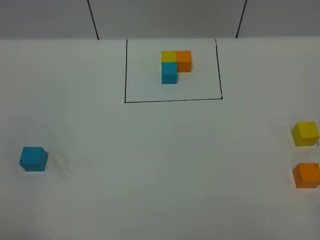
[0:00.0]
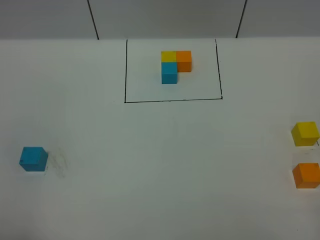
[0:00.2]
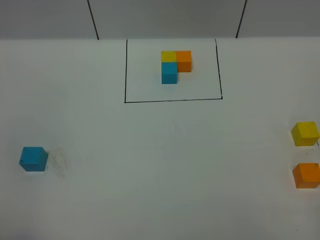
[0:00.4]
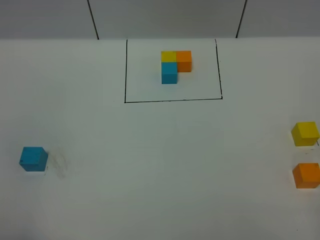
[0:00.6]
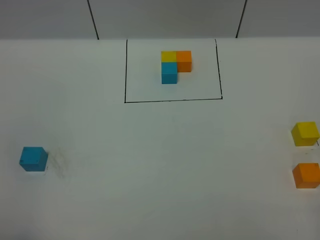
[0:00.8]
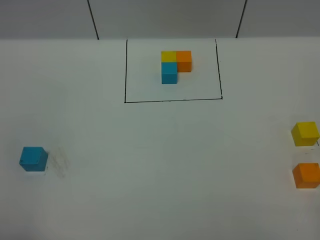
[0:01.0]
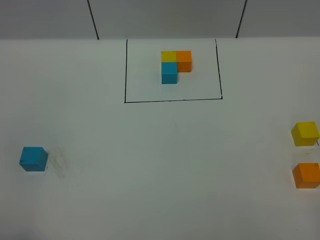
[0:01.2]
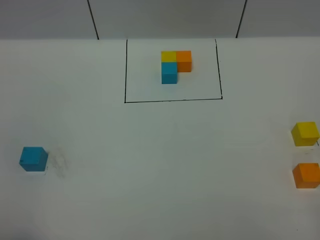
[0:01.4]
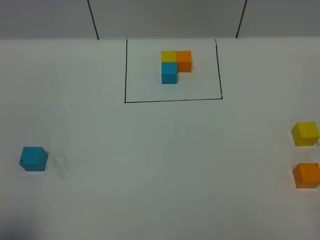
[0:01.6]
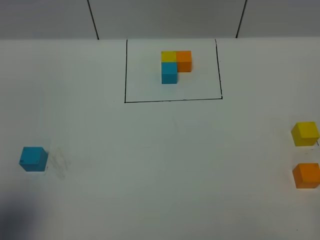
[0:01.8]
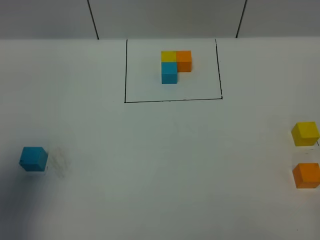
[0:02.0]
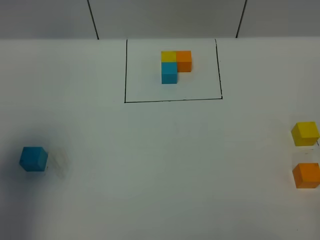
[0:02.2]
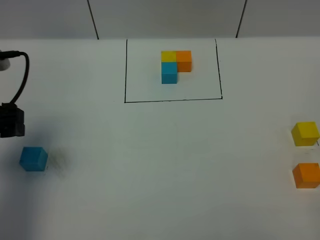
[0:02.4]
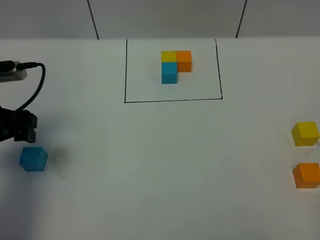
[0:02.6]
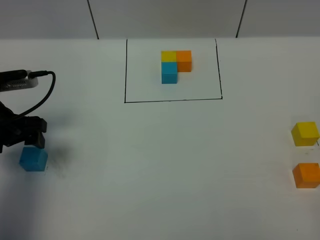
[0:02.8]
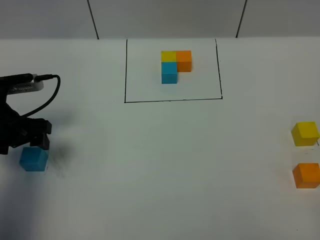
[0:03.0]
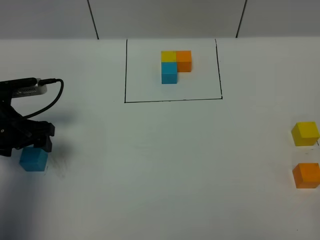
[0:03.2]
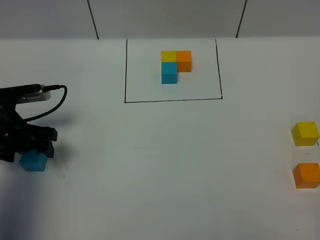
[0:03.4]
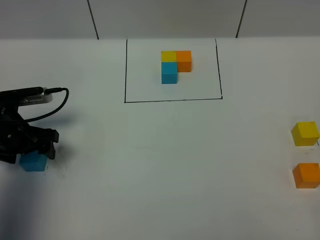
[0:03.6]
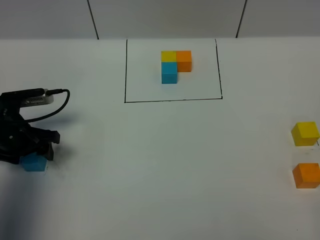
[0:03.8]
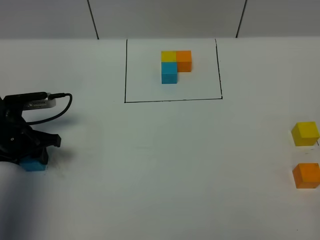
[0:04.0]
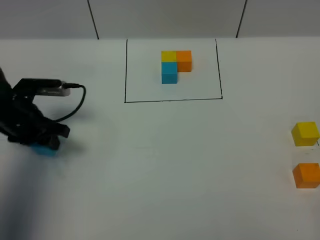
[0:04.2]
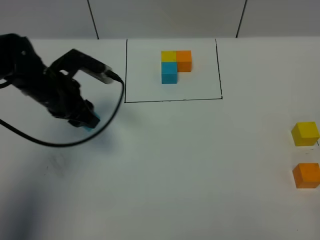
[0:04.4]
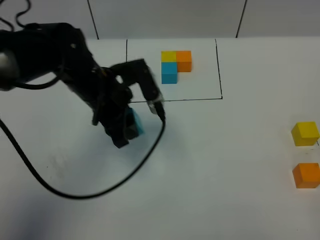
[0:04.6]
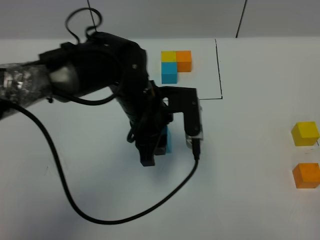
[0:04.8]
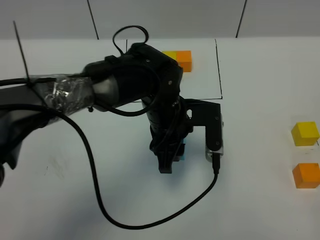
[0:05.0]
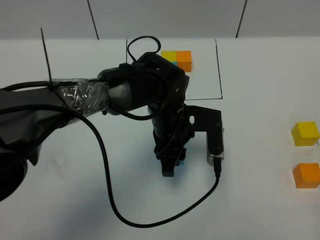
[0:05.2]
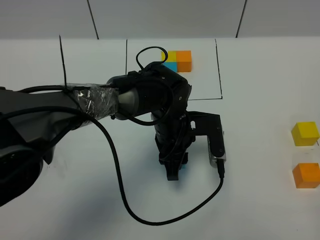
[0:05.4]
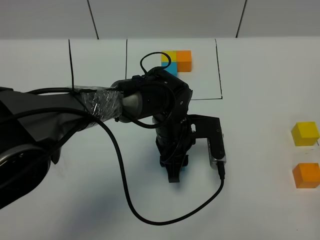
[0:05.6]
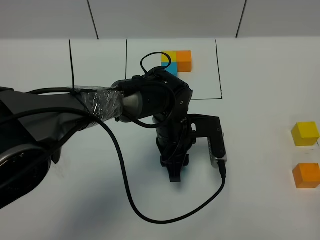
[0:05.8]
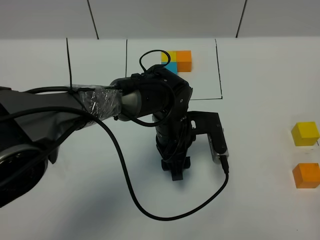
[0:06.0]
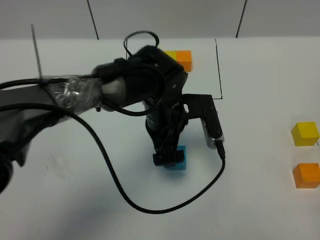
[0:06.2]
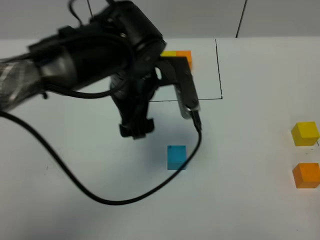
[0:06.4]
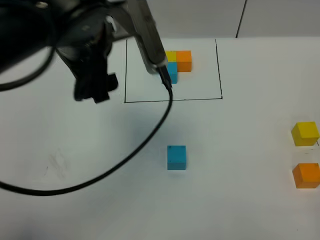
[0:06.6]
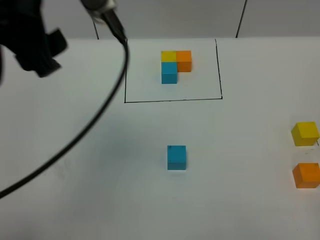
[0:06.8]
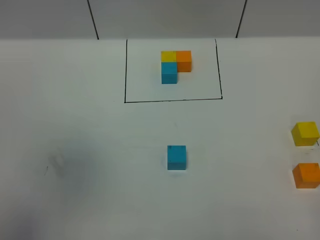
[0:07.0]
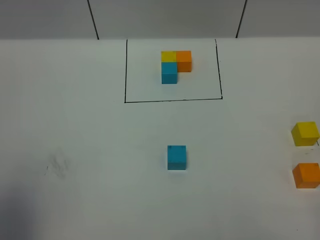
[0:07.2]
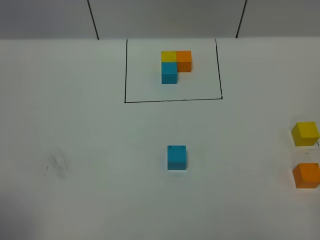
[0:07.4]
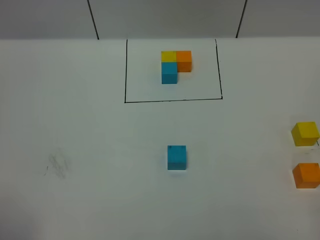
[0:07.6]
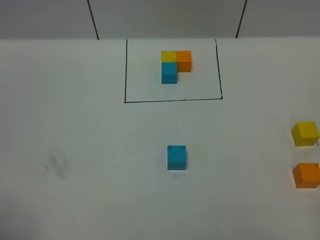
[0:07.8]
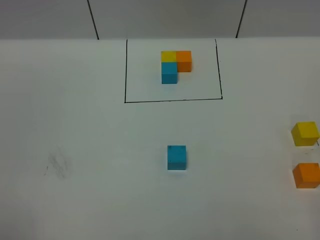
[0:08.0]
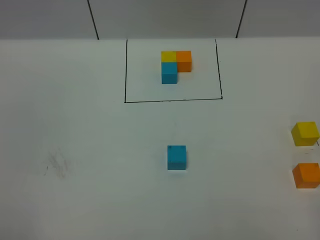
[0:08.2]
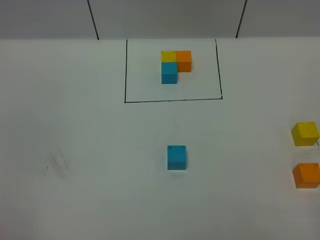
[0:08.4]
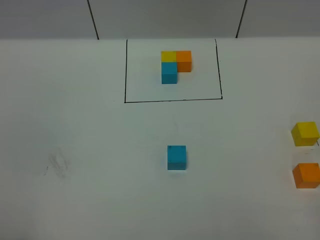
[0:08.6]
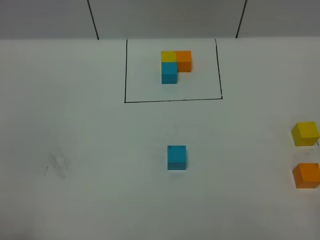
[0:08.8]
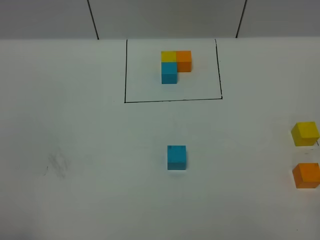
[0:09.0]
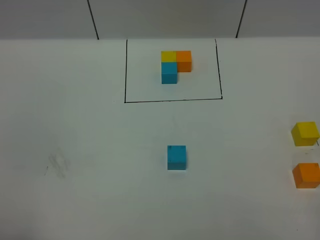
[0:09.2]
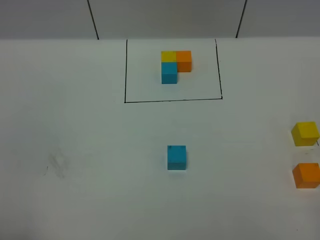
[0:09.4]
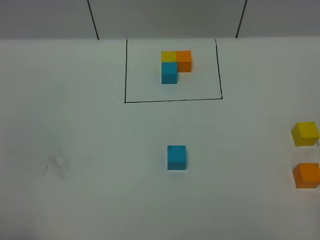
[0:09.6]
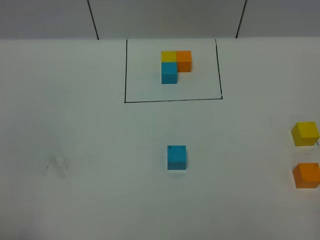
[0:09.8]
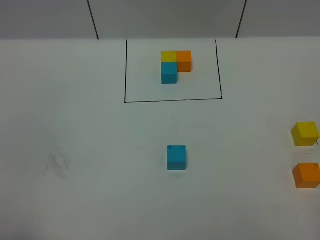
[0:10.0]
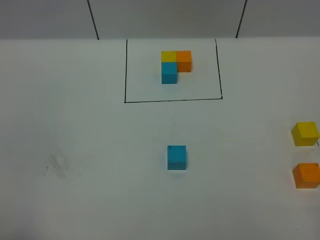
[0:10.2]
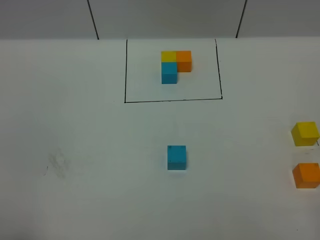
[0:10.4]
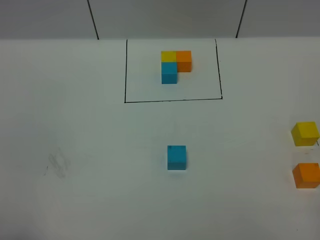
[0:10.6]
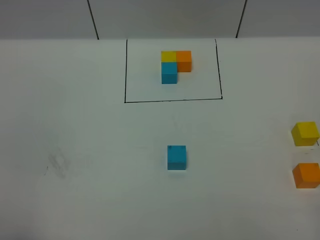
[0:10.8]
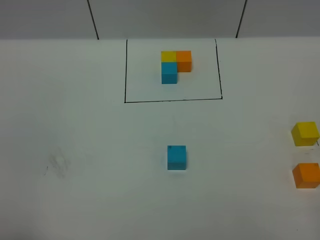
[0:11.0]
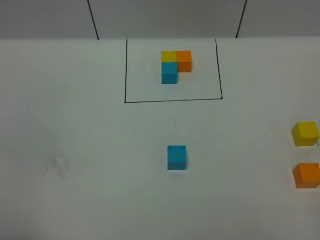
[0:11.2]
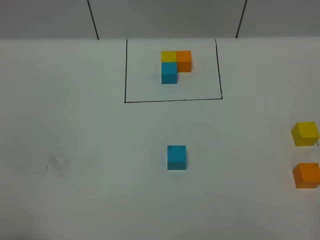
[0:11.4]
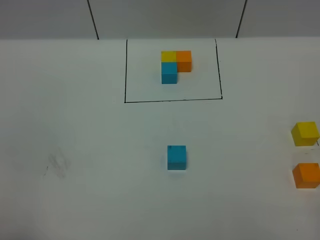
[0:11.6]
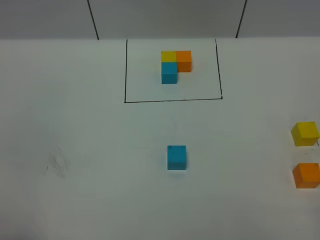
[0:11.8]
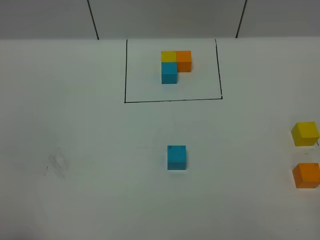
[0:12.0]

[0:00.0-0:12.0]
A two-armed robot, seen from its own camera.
Task of the whole recording: According to the building block template in front, assemble the scattered blocks together.
Step, 0:02.2 to 0:06.0: Put the blue cube in the center of the table.
0:01.6 to 0:03.0: The left gripper shifts approximately 30 cm forward and downward.
0:03.0 to 0:04.4: The left gripper travels to the right and forward by approximately 10 cm, and closes.
0:04.4 to 0:06.0: The left gripper moves to the right, about 20 cm, and opens up.
0:06.0 to 0:07.6: The left gripper shifts roughly 60 cm to the left, upward and backward.
0:09.0 to 0:12.0: Both grippers stay about where they are.

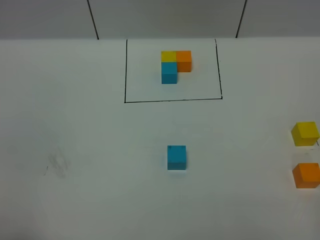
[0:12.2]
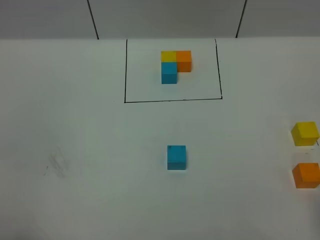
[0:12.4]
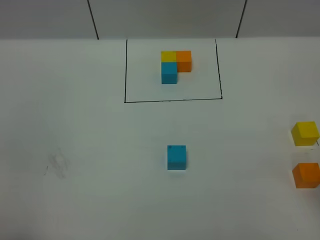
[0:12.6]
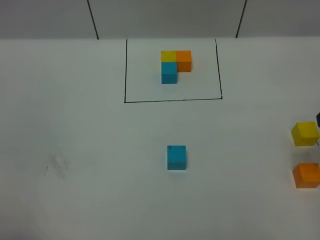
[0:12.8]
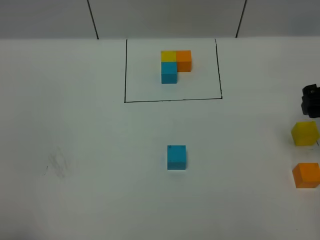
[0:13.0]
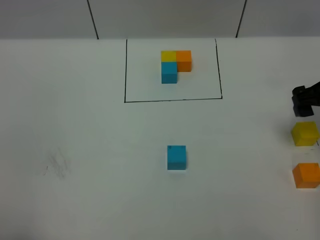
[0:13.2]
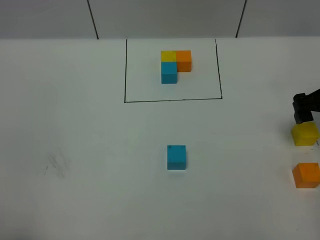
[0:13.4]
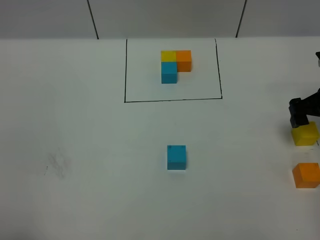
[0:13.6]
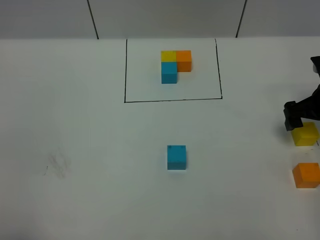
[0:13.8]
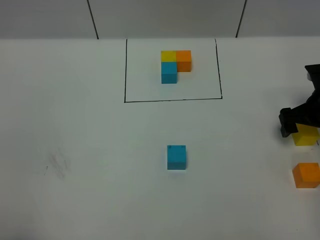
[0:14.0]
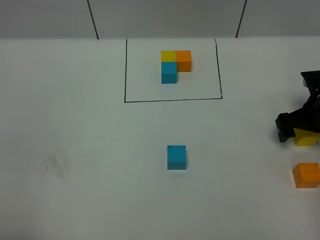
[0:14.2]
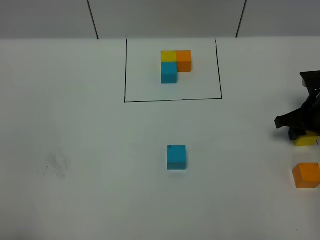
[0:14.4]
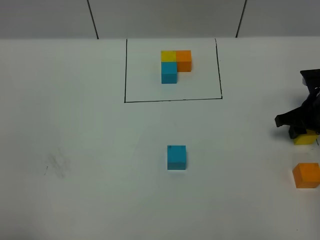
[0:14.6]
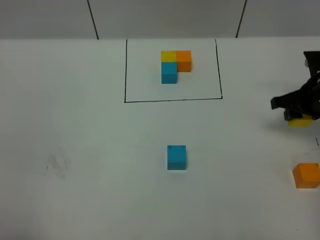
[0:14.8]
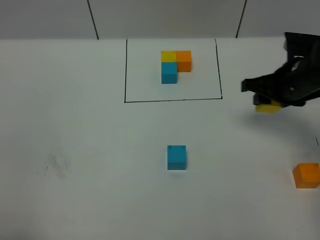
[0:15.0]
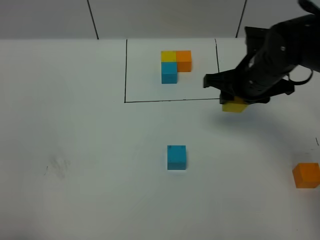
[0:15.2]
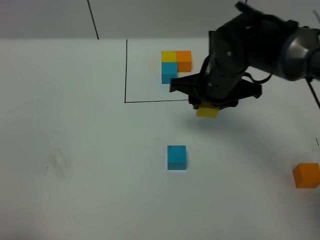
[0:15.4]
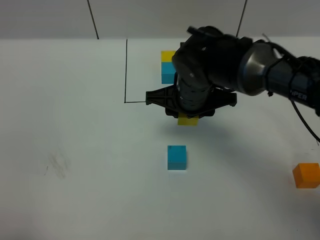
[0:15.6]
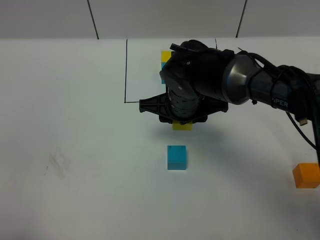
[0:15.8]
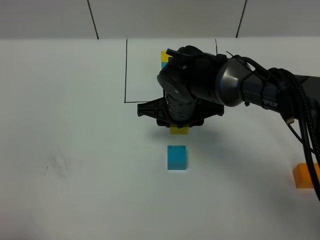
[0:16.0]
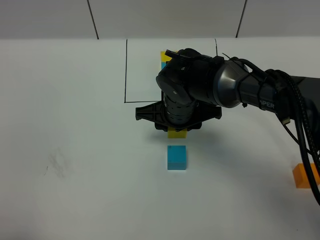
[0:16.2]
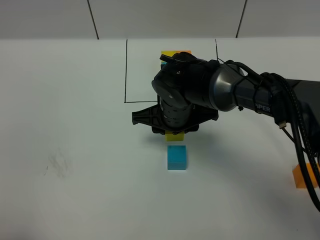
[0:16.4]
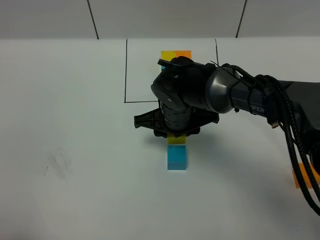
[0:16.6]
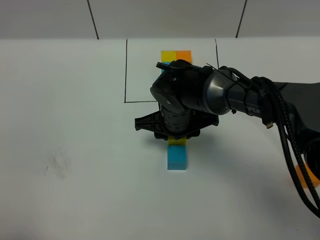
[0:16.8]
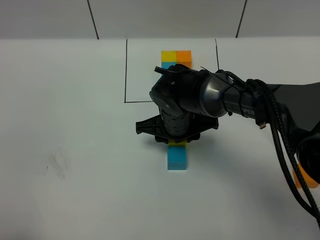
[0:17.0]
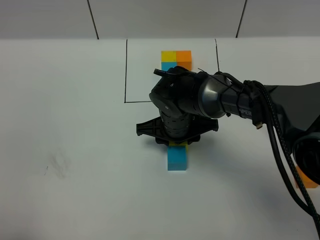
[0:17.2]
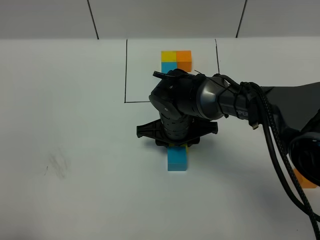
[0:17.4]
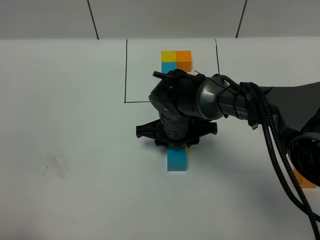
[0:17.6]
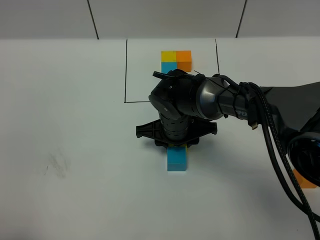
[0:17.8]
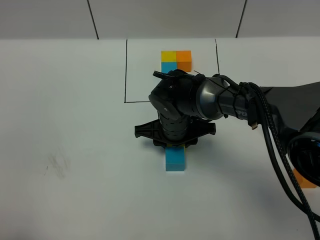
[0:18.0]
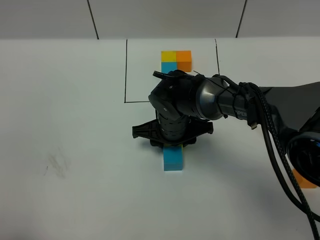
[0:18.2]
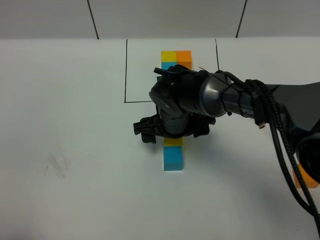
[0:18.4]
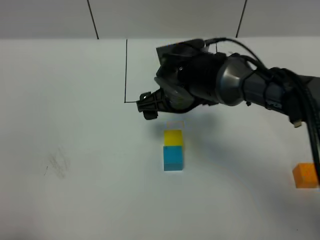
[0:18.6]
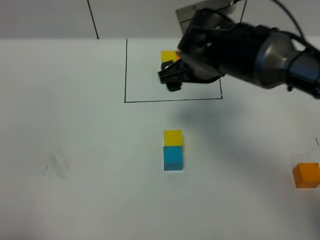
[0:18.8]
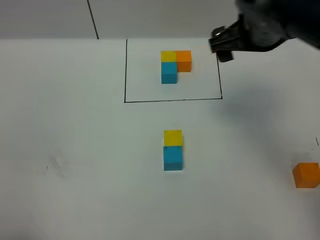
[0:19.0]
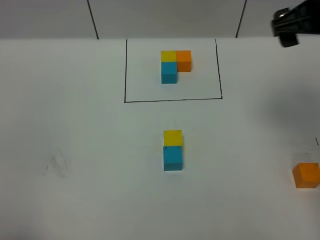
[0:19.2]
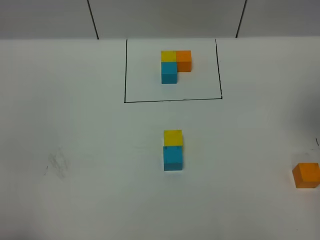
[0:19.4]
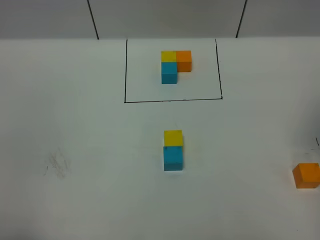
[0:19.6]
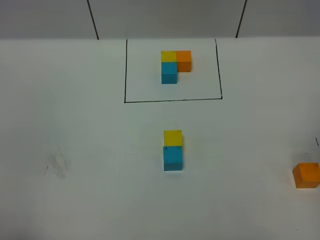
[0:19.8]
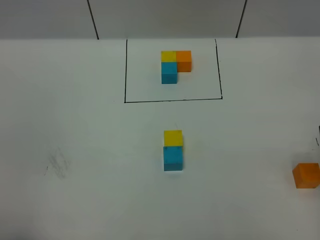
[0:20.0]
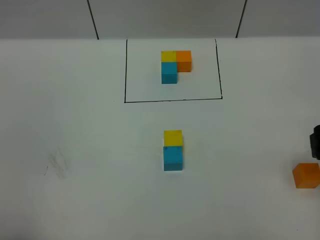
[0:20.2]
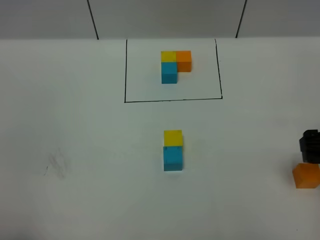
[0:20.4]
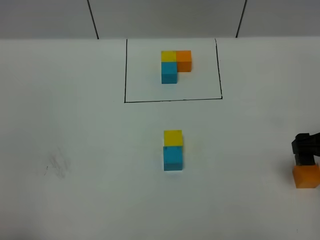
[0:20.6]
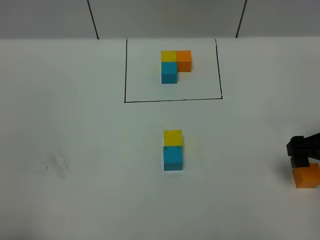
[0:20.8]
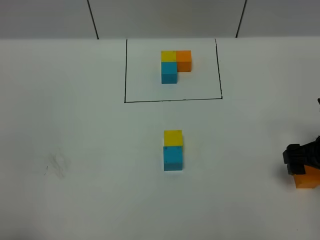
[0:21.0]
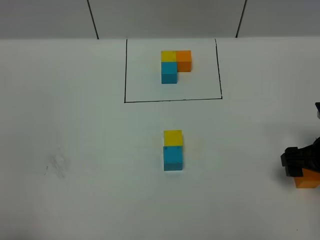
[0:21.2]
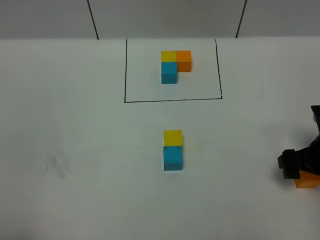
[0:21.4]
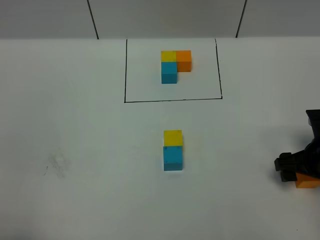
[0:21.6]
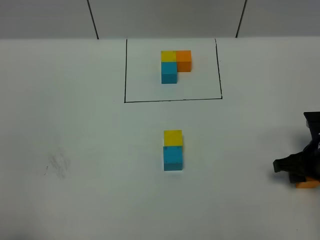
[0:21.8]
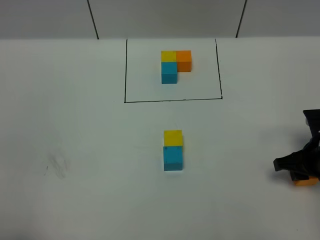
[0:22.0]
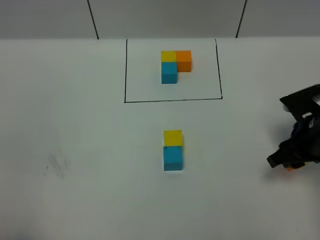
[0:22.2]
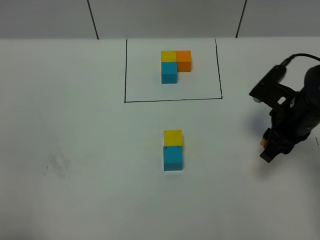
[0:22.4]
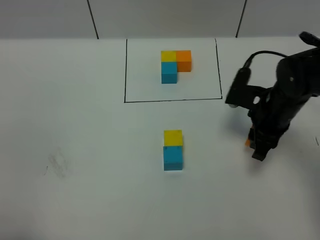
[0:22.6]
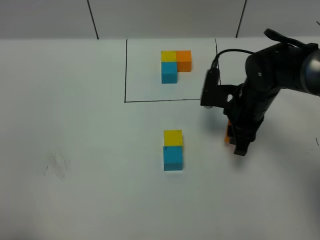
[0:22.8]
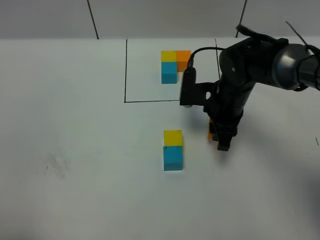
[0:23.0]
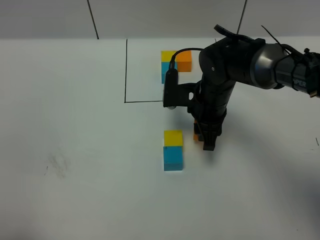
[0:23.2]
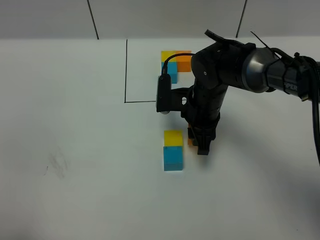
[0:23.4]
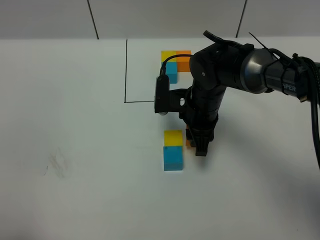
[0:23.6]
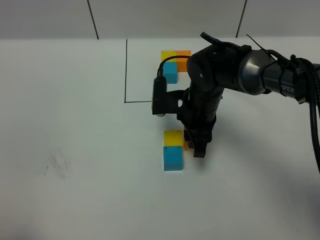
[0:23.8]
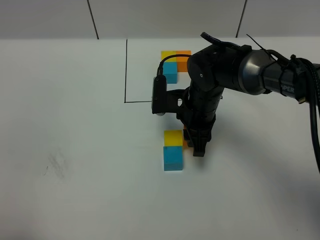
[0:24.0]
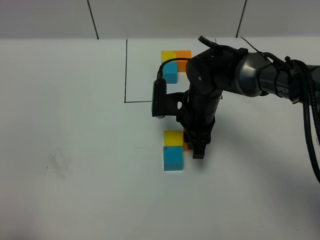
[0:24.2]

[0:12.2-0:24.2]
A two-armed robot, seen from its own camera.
Task of the whole recording: According to the building block template in front, assemble the scattered blocks together.
Step, 0:12.2 to 0:18.4: Put the yellow cube on the behind of the blue cube.
0:12.2 to 0:13.8: The right gripper heads forward and downward, covering about 35 cm, and opens up.
0:13.8 to 0:15.2: The right gripper is displaced to the left by about 15 cm, and closes.
0:15.2 to 0:16.6: The right gripper is displaced to the left and downward by about 15 cm.
0:16.6 to 0:18.2: The grippers make only small movements.
0:18.2 to 0:19.8: The right gripper shifts roughly 35 cm to the right, upward and backward, and opens up.
0:19.8 to 0:21.2: The right gripper travels downward by approximately 20 cm.
0:21.2 to 0:22.6: The right gripper travels to the left and forward by about 10 cm, and closes.
0:22.6 to 0:24.2: The right gripper is displaced to the left by roughly 15 cm.
